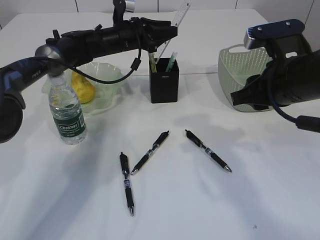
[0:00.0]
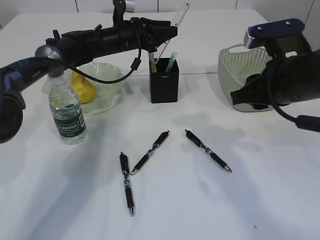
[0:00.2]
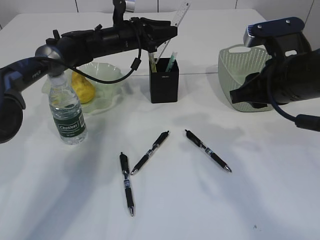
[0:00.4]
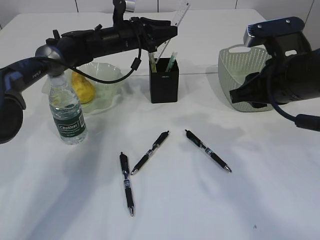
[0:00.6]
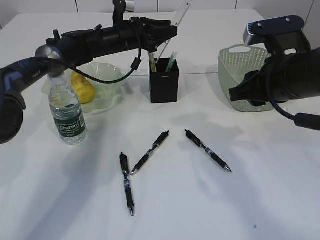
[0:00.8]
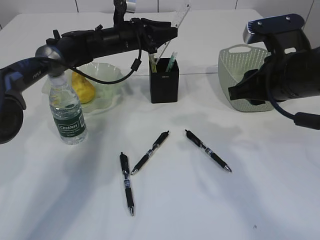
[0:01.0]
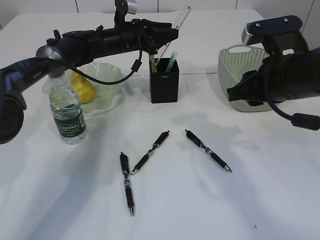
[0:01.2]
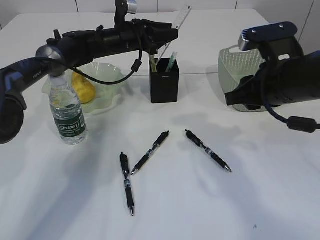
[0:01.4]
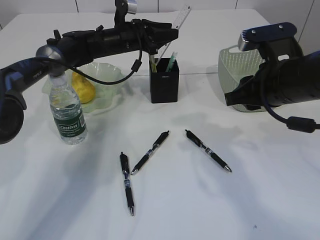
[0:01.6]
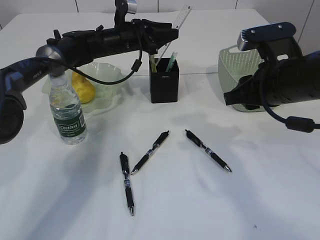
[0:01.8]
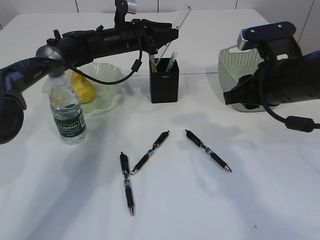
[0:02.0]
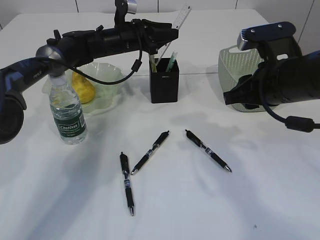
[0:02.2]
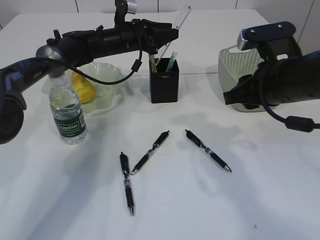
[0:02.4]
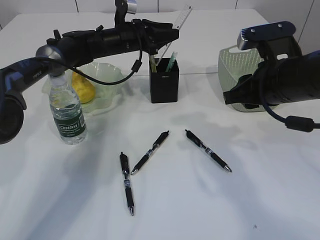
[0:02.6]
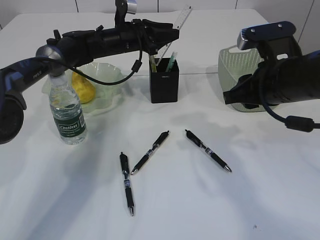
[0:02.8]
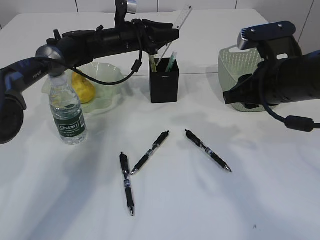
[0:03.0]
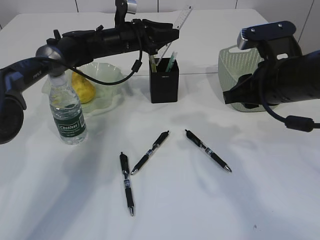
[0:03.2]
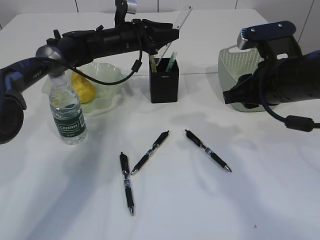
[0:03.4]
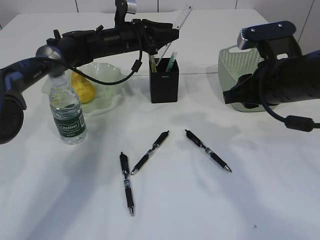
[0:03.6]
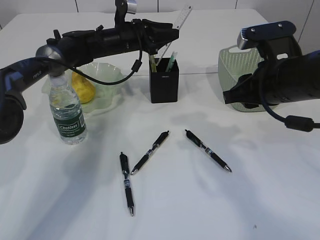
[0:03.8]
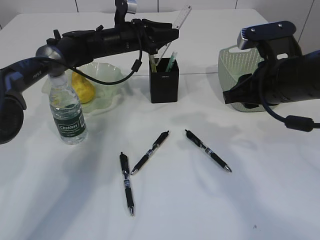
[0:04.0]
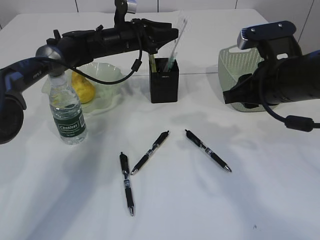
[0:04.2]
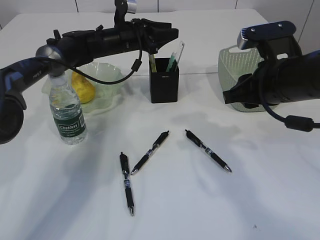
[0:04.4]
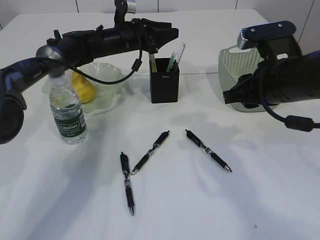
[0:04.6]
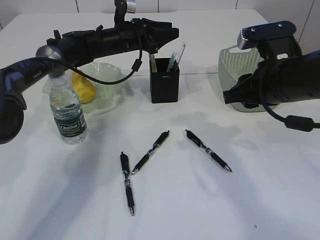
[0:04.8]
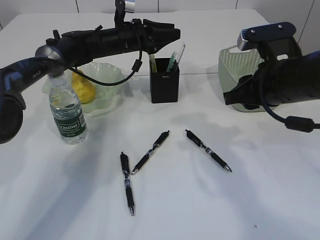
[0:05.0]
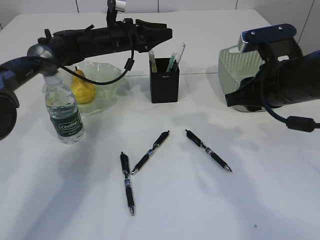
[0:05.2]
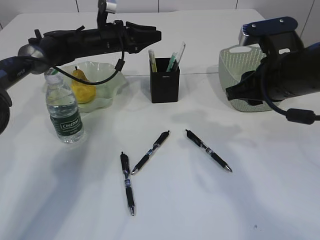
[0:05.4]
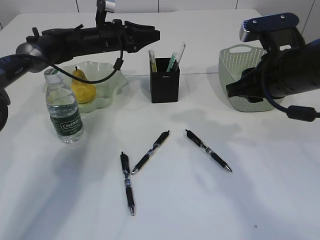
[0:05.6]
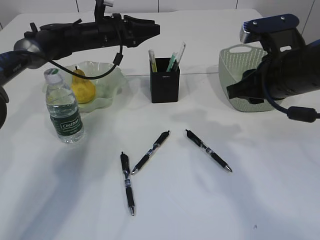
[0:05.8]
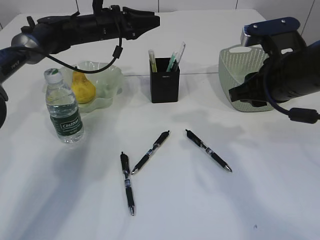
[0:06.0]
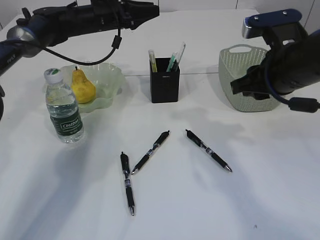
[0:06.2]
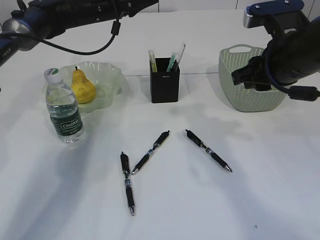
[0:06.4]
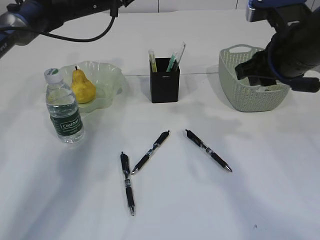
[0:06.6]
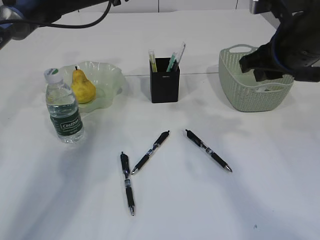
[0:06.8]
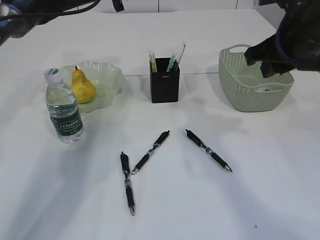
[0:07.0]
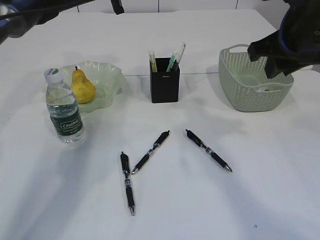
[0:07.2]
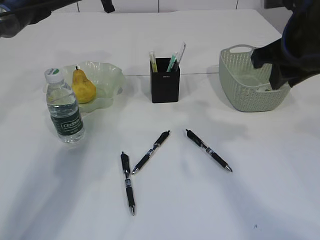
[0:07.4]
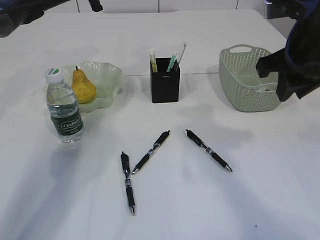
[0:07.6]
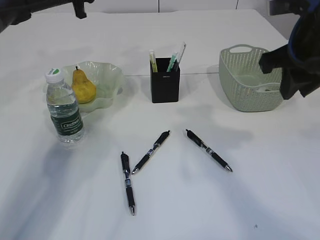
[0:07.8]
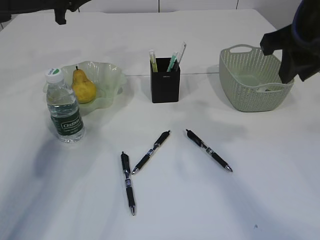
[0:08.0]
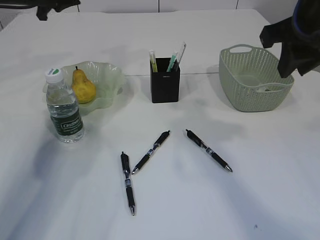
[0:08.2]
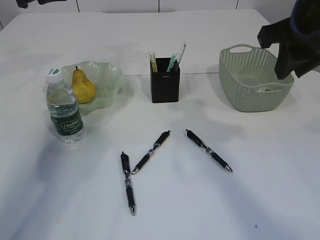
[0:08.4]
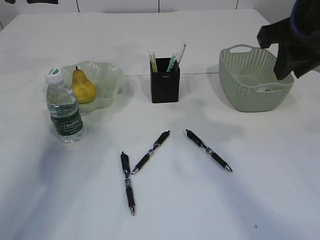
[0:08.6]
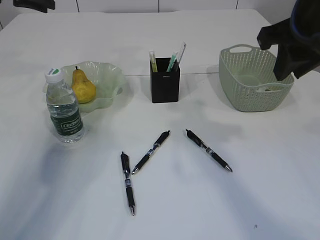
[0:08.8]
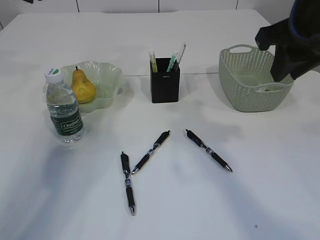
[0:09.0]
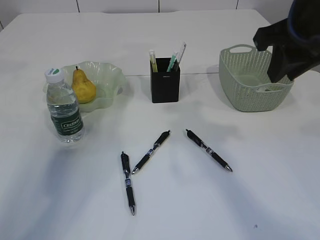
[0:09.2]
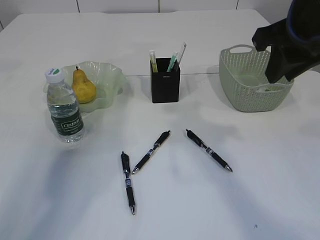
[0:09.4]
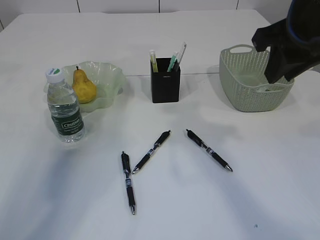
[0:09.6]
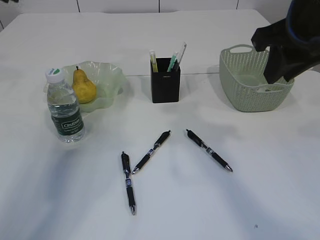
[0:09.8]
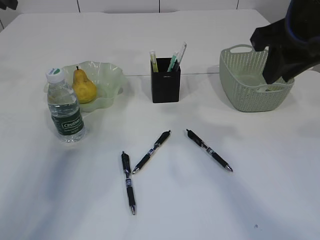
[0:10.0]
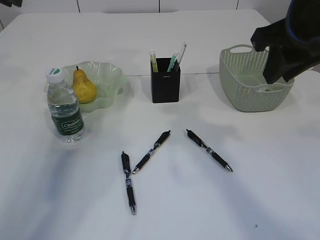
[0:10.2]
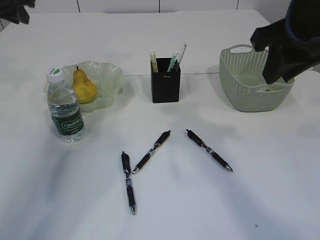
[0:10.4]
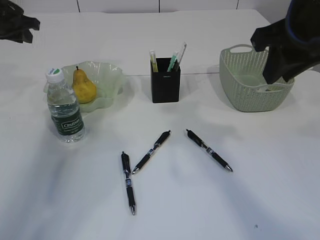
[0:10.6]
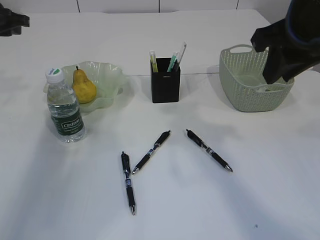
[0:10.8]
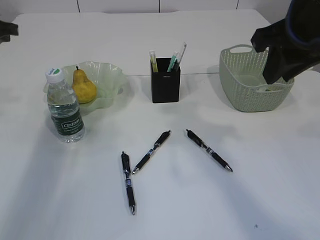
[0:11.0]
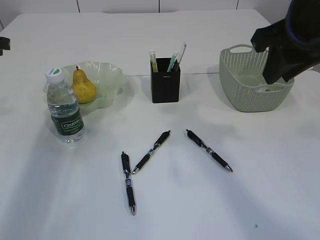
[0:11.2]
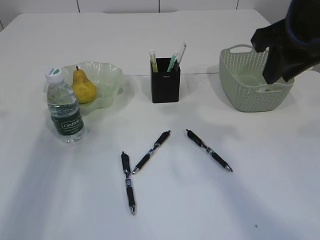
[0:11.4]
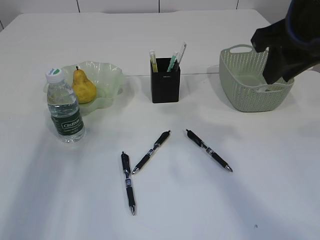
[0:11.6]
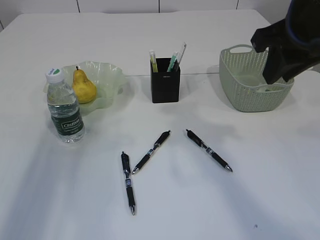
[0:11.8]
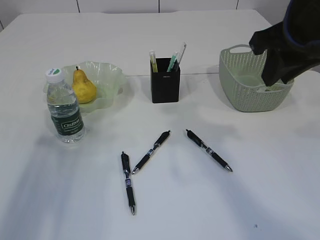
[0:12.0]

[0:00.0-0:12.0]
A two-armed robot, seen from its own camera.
Step, 0:00.0 to 0:04.4: Place the ruler into the pen holder.
0:00.0 to 0:03.0: The two grippers keep their place.
0:03.0 to 0:04.4: Both grippers stay about where they are.
0:04.4 to 0:06.0: The left gripper moves some 5 cm.
0:06.0 to 0:07.6: The right gripper goes roughly 5 cm upward. The left gripper shifts approximately 10 cm upward and to the left.
0:07.6 to 0:09.0: The left gripper travels to the left, backward and upward by some 15 cm.
0:10.4 to 0:12.0: The left gripper shifts about 25 cm backward.

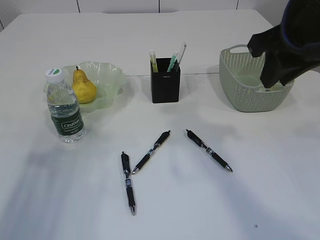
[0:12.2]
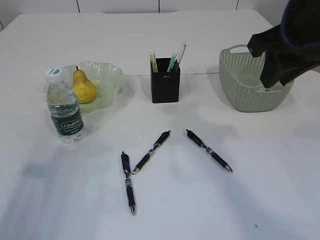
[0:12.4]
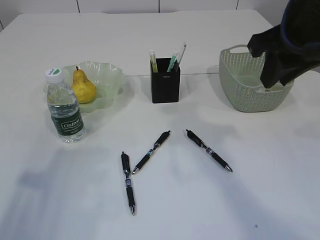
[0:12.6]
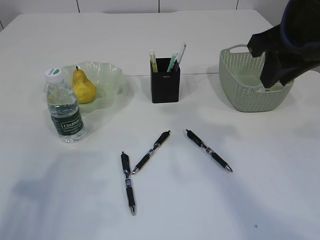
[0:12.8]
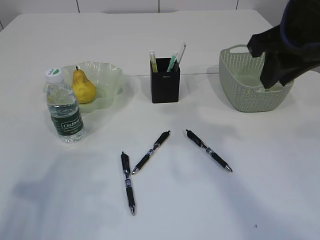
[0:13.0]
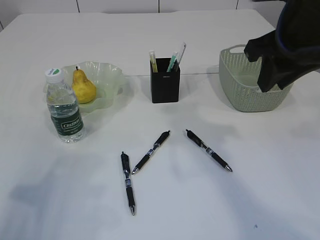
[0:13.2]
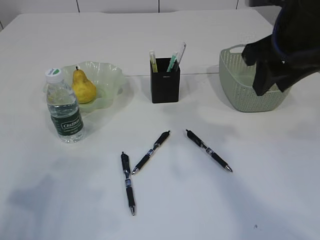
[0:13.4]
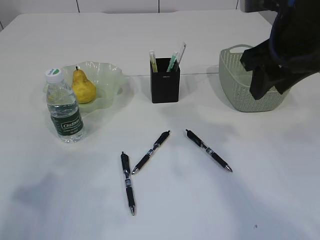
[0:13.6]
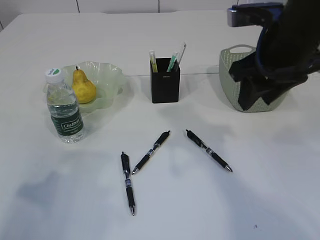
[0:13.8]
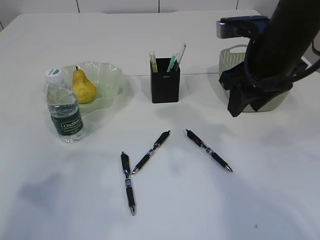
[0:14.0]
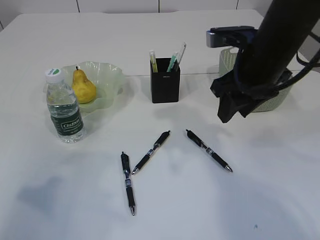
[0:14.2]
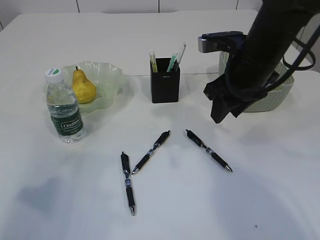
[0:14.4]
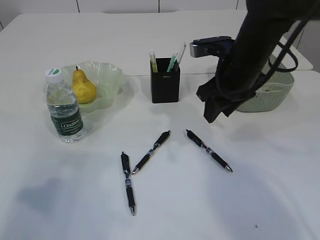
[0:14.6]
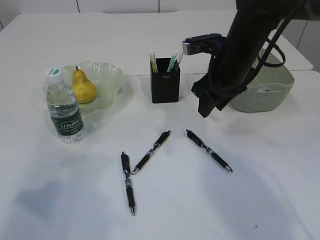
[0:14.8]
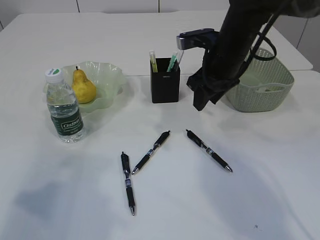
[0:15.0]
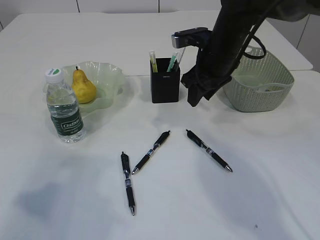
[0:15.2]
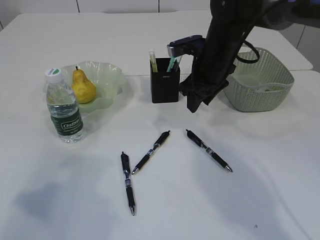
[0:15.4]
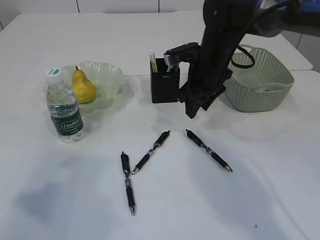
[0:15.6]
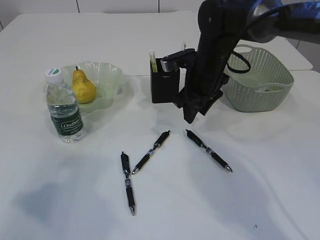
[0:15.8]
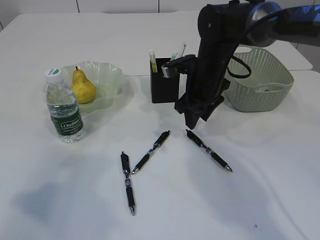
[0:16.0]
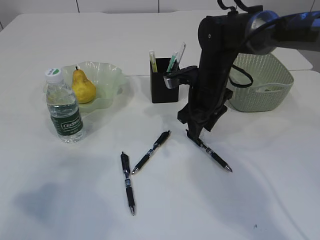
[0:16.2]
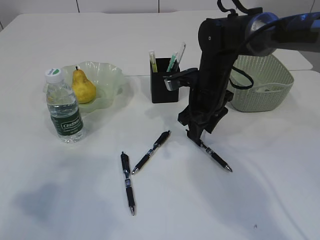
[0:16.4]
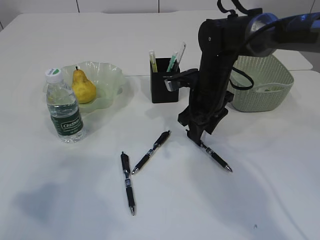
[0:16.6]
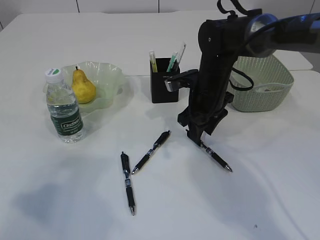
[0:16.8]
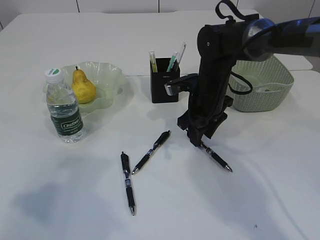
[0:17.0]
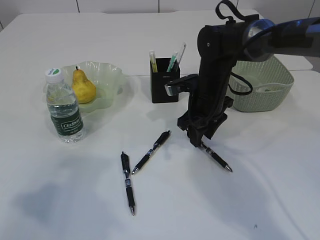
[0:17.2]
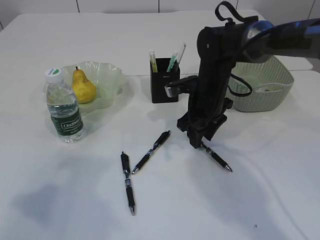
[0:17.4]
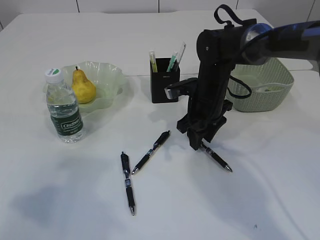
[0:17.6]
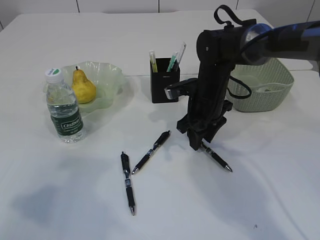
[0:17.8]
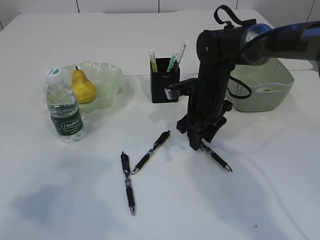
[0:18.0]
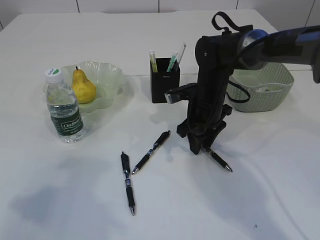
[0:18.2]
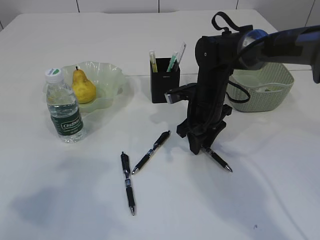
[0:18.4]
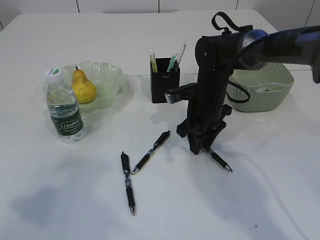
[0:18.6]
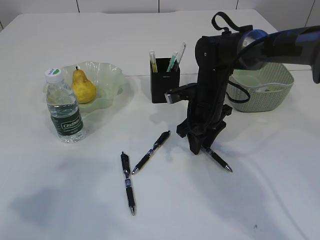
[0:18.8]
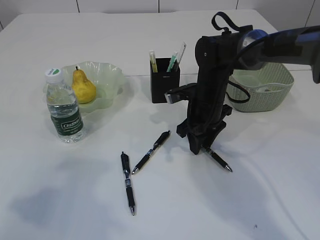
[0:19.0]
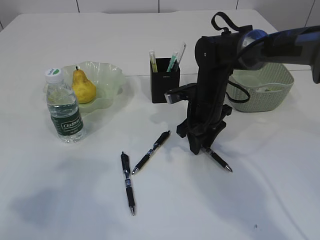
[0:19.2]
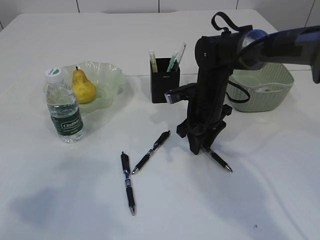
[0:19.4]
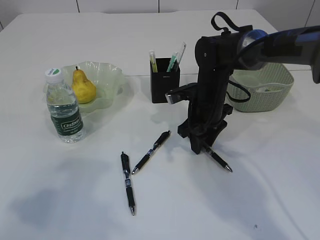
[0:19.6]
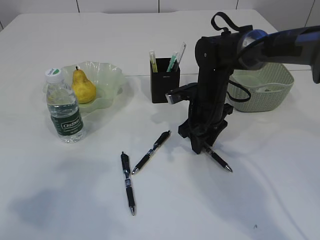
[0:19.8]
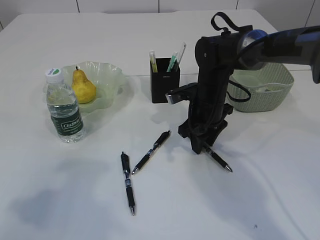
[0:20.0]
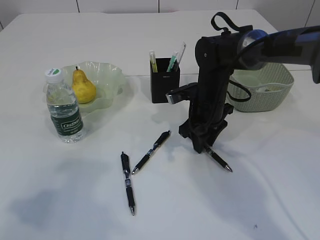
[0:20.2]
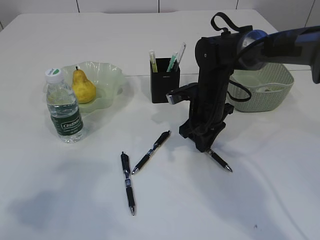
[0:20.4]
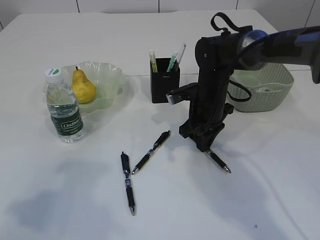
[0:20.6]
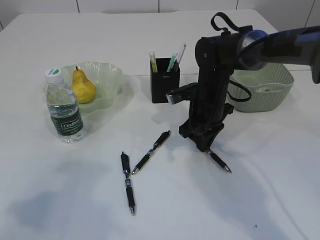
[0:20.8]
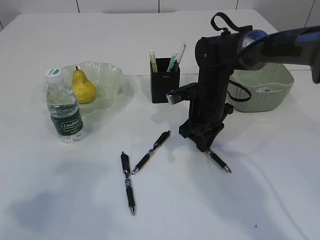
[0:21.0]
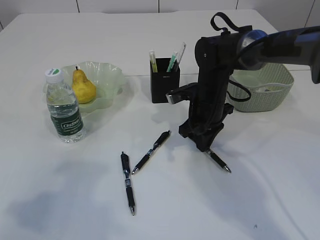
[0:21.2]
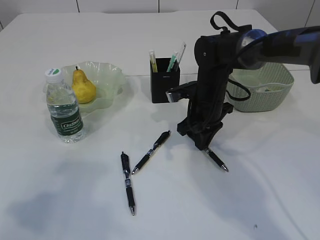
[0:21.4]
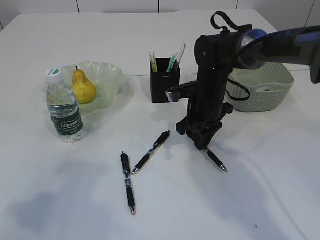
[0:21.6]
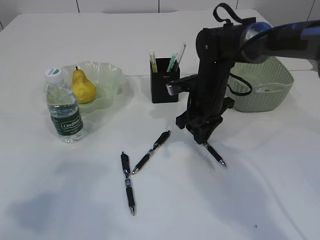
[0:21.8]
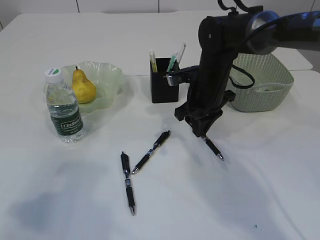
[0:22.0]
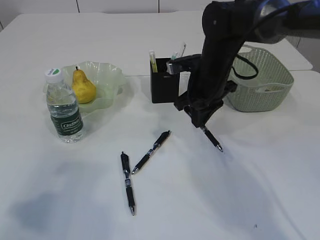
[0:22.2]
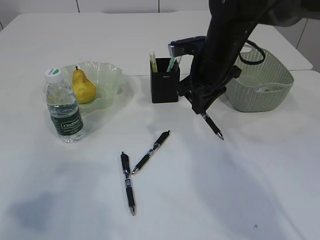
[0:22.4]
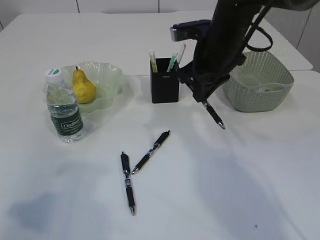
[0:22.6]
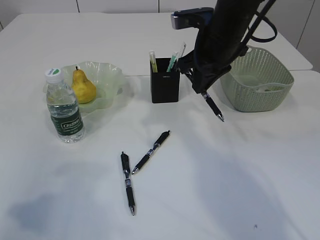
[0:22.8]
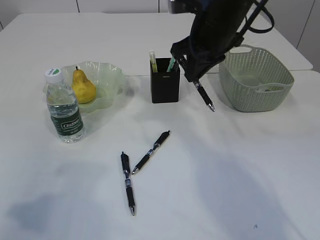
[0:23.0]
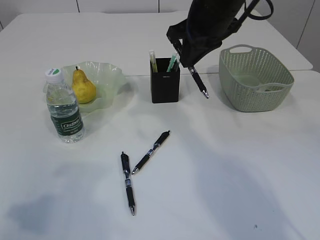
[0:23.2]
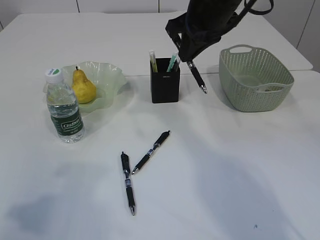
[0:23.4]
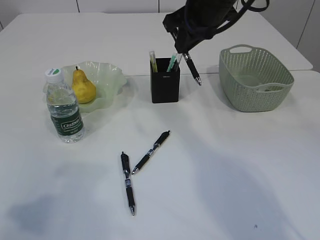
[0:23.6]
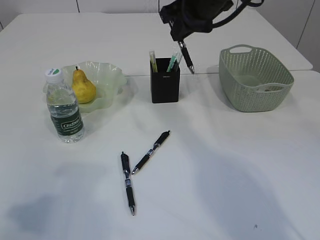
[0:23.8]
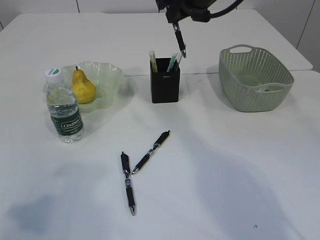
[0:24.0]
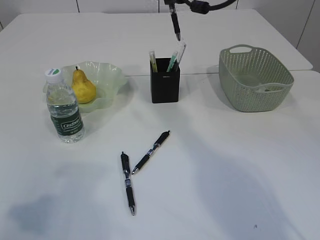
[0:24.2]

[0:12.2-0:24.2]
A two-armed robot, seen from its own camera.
Step, 0:12.2 to 0:22.4: Pick up the pen with right arm.
0:13.8 to 0:15.2: The right gripper is displaced forward and downward by about 15 cm.
0:15.2 to 0:16.6: The right gripper goes approximately 5 cm downward.
0:16.6 to 0:18.2: The grippers stay close to where they were, moving slightly.
0:18.2 to 0:19.8: The two grippers keep their place.
0:19.8 to 0:21.2: The right gripper closes up.
0:21.2 to 0:22.6: The right gripper is displaced upward by about 10 cm.
0:22.6 to 0:24.2: The right gripper is displaced upward by roughly 10 cm.
